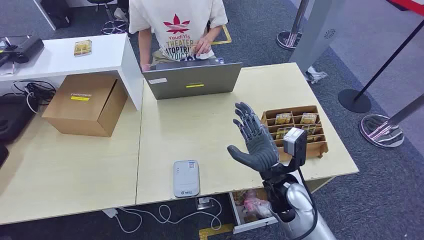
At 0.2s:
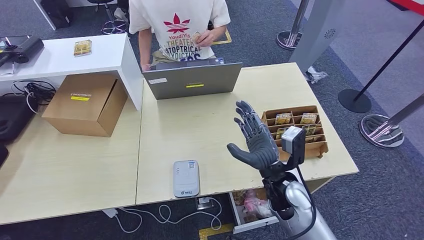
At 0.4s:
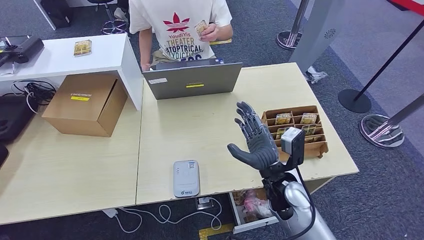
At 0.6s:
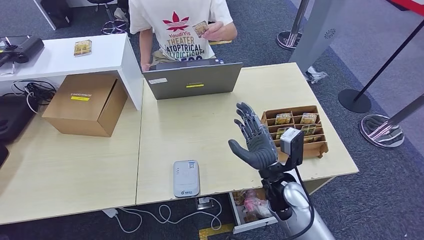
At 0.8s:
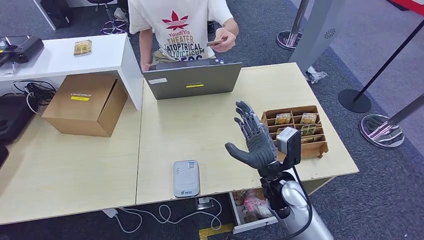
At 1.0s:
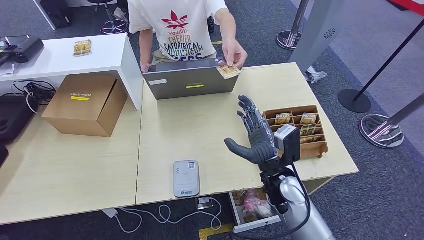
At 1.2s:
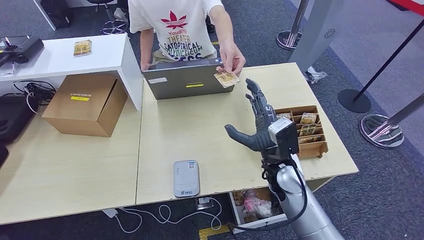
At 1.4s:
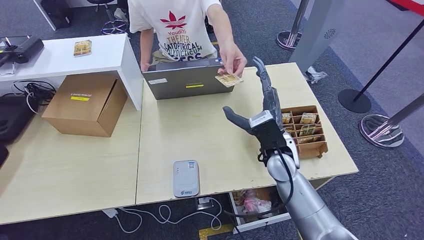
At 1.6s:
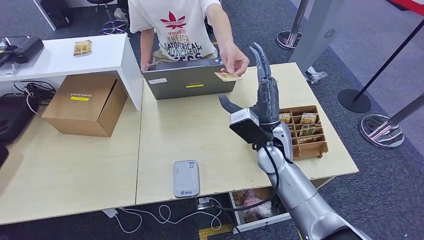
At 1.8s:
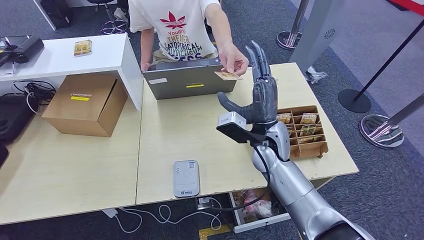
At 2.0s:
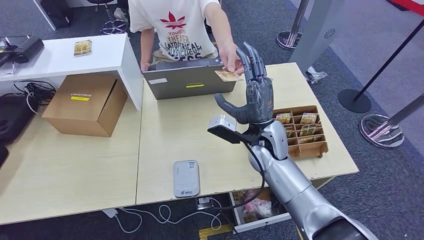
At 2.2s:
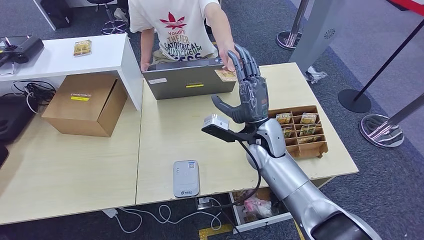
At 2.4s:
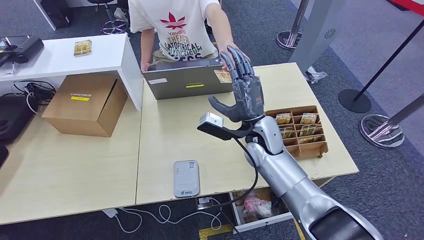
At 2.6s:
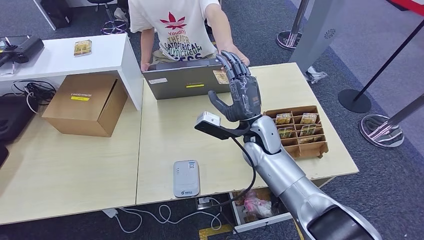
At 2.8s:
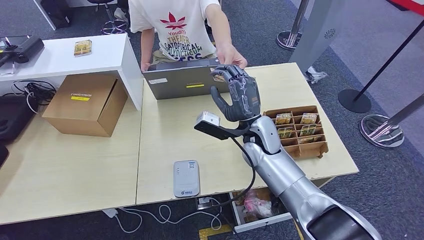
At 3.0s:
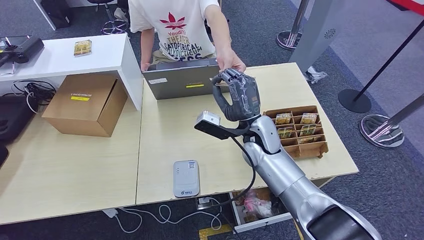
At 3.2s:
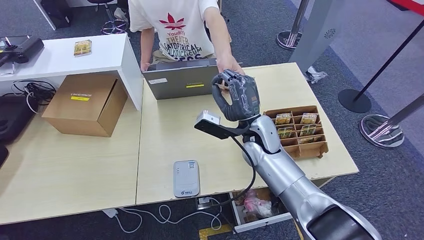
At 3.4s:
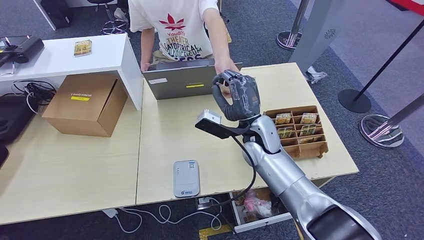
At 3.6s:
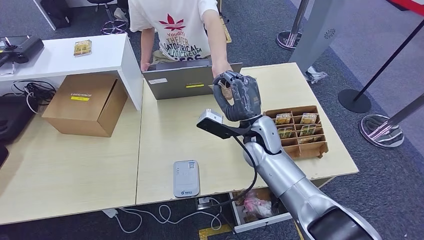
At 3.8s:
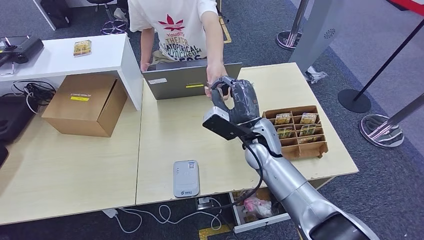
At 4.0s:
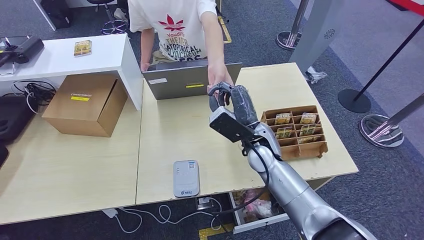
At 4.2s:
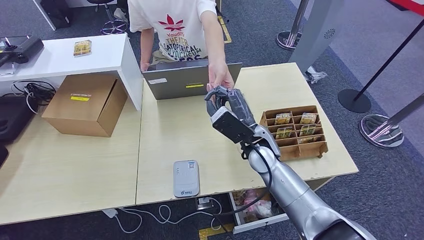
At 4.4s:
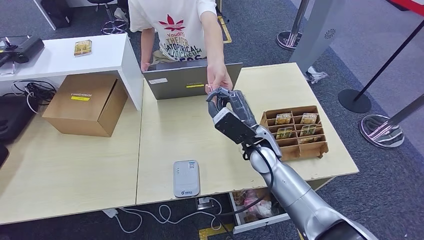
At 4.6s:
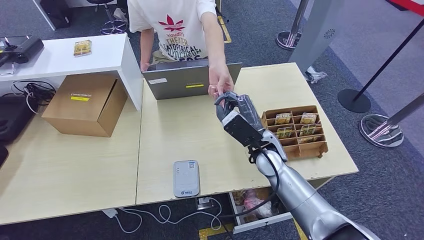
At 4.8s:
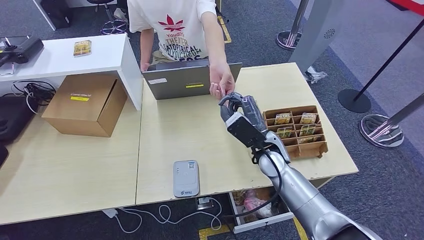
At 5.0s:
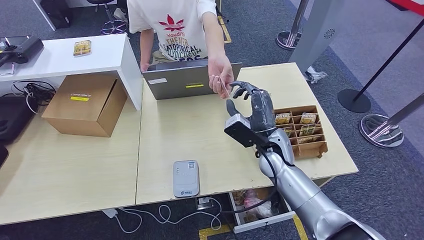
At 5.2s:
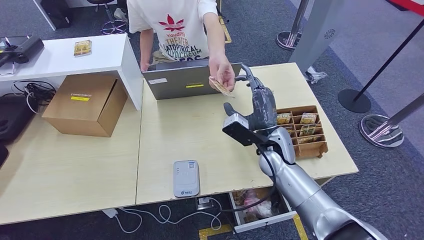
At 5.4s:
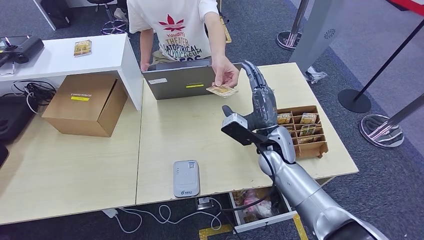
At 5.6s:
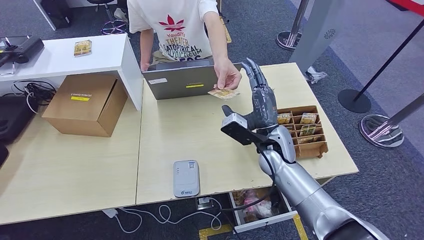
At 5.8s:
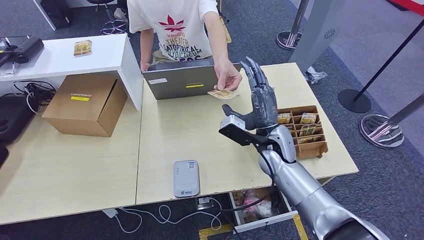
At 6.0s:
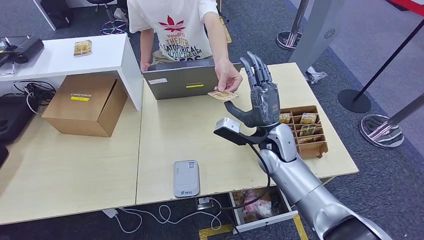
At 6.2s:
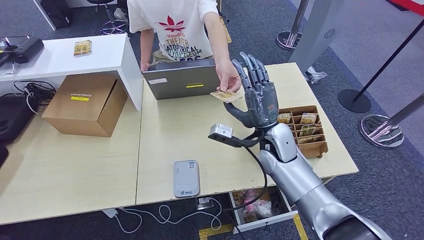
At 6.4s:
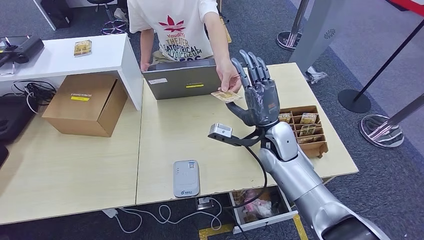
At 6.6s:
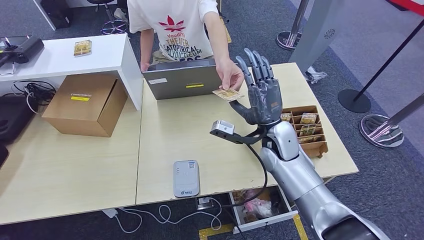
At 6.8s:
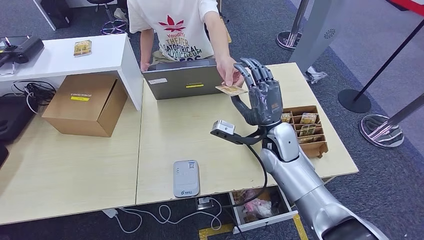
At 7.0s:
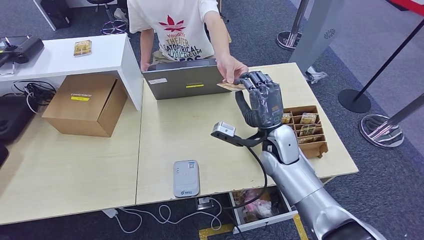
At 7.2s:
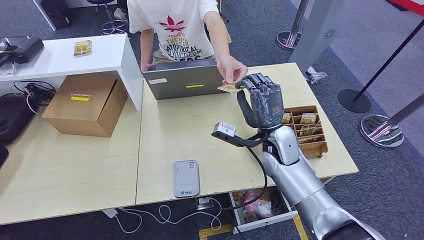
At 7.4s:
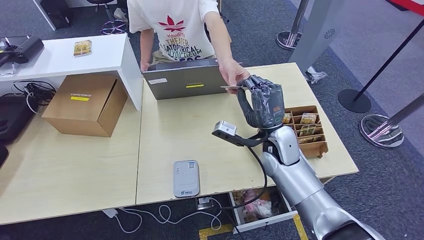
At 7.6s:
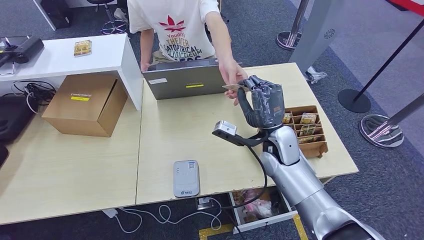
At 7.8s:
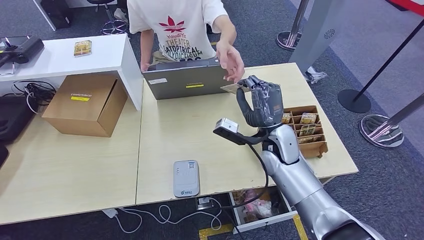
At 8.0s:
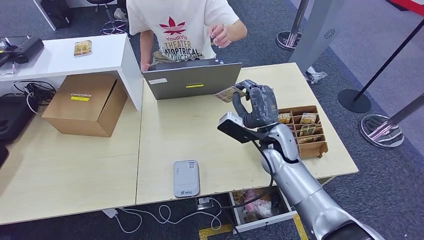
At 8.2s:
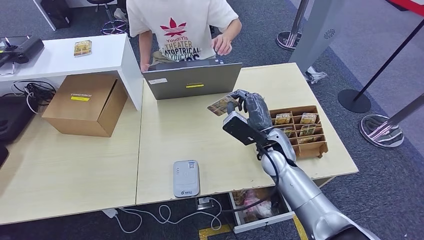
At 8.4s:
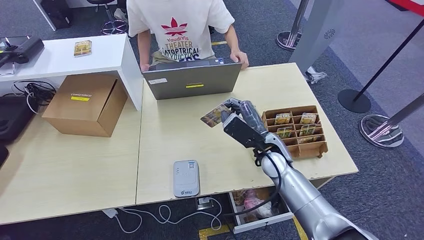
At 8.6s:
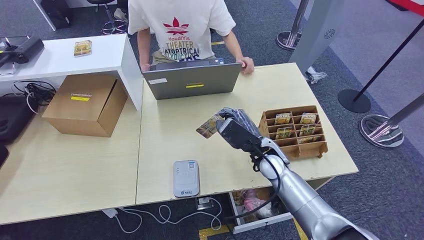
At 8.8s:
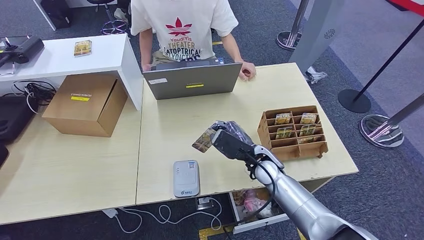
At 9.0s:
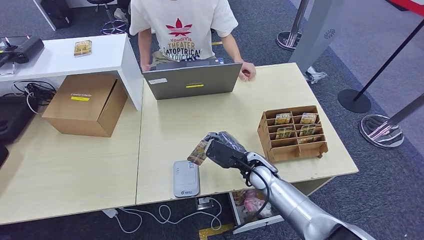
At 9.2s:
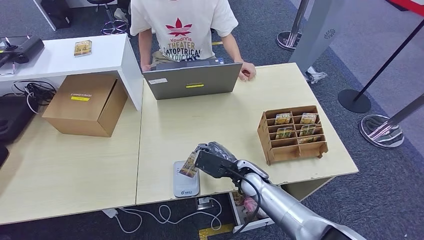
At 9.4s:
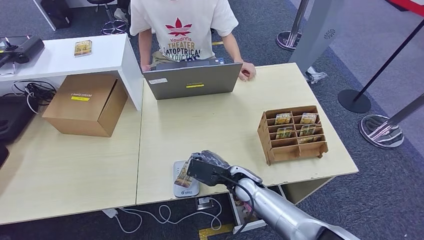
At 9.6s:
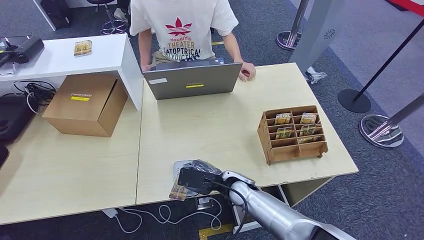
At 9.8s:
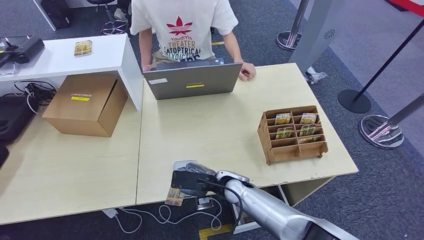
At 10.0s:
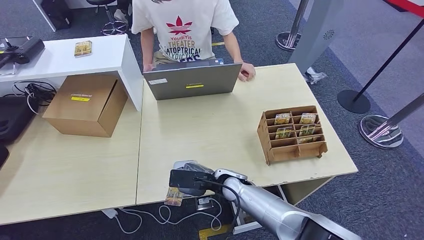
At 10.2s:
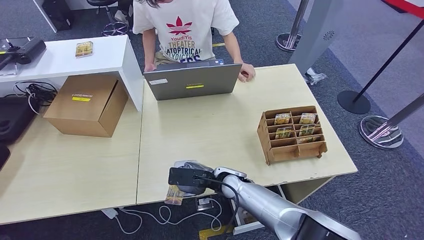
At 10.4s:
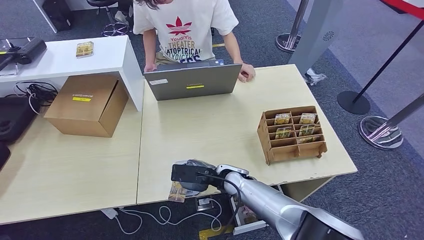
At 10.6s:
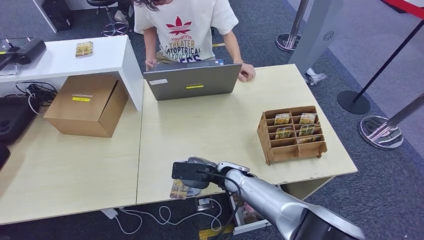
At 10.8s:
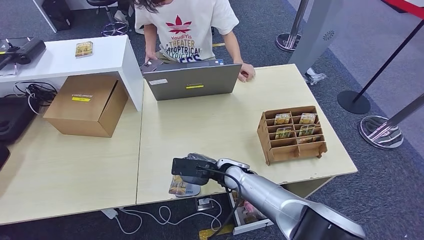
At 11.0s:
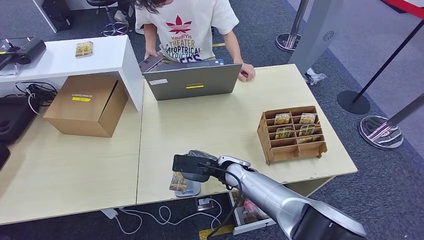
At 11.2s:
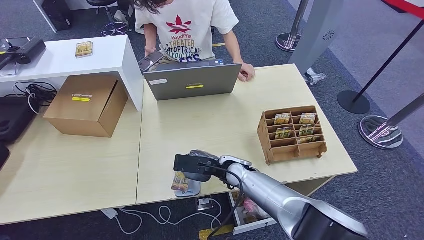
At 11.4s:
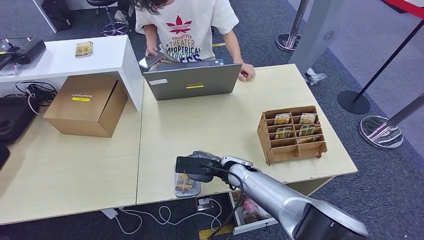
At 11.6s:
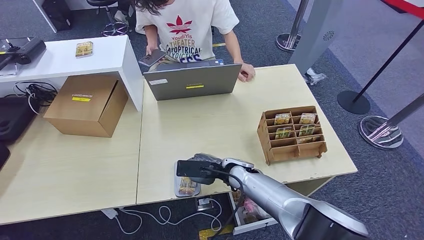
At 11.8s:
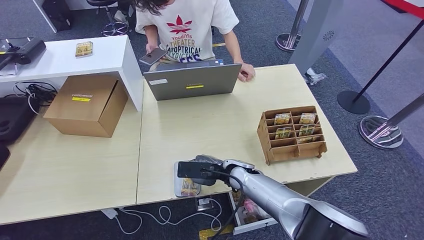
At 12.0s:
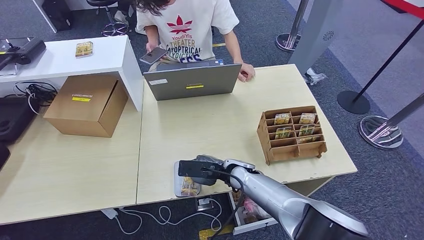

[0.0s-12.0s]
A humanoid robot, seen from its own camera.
Step, 0.0s to 7.8s: Take the ID card from the person's hand.
6.0s to 7.6s: The hands make only small movements.
7.6s to 9.0s: The right hand moves downward, about 10 cm.
9.0s to 10.4s: The right hand heads to the left, covering approximately 5 cm.
10.4s to 12.0s: The hands stay close to where they were, moving slightly.

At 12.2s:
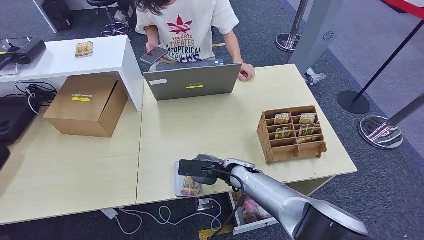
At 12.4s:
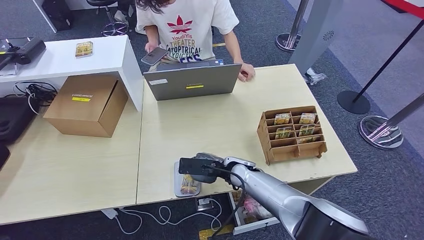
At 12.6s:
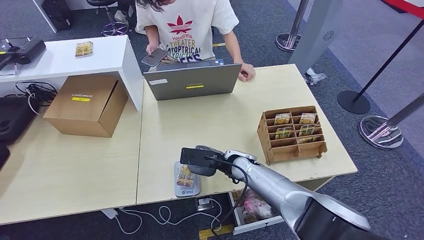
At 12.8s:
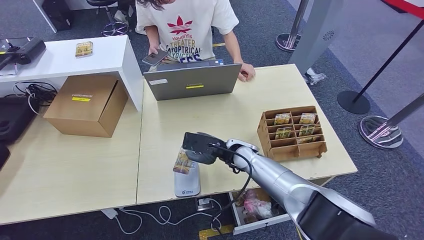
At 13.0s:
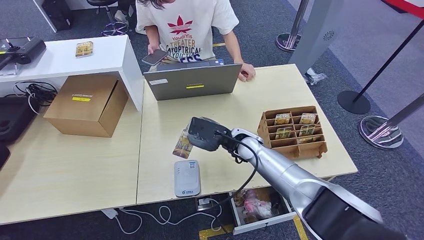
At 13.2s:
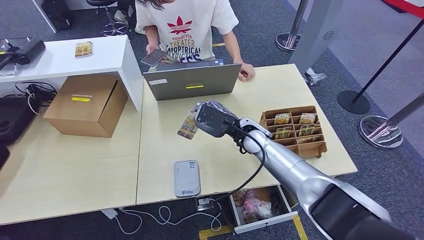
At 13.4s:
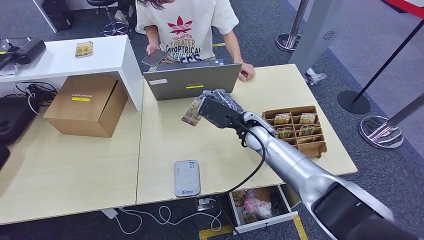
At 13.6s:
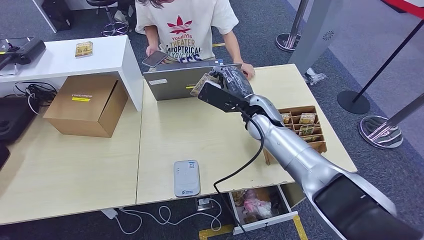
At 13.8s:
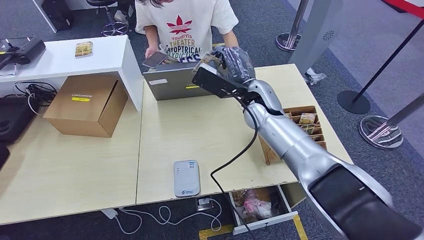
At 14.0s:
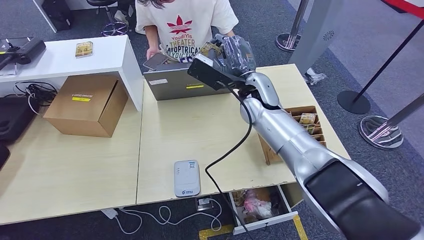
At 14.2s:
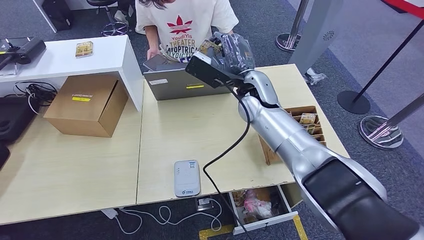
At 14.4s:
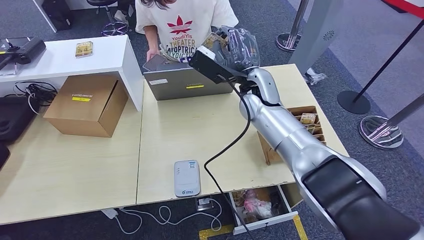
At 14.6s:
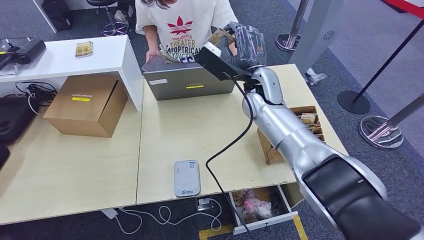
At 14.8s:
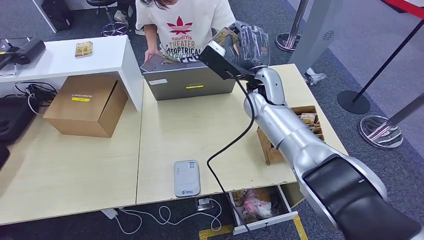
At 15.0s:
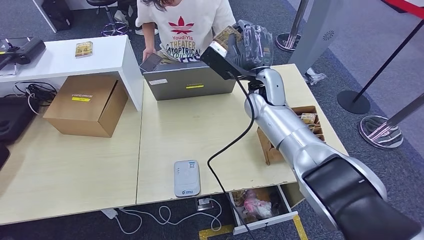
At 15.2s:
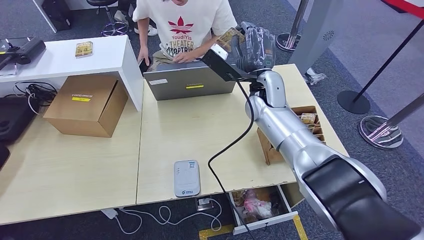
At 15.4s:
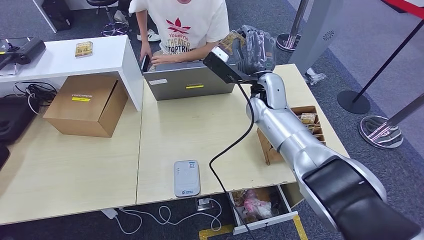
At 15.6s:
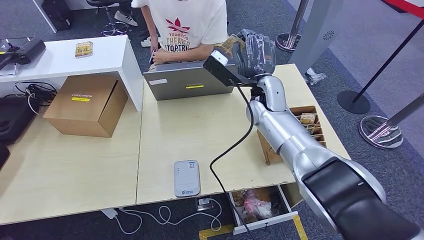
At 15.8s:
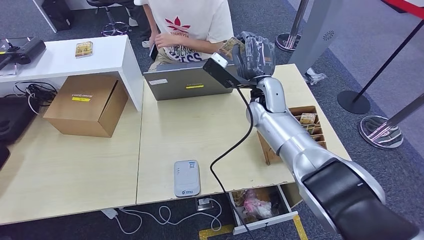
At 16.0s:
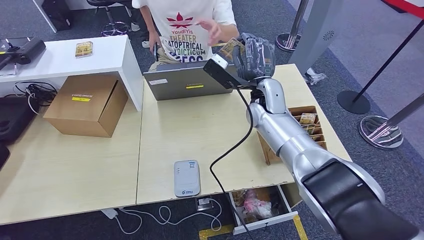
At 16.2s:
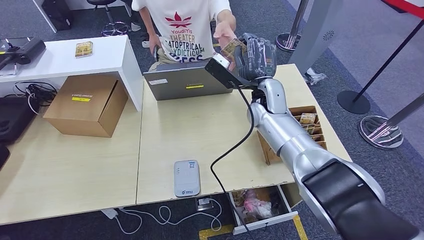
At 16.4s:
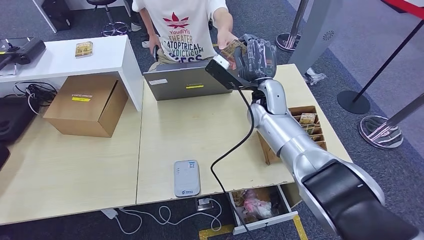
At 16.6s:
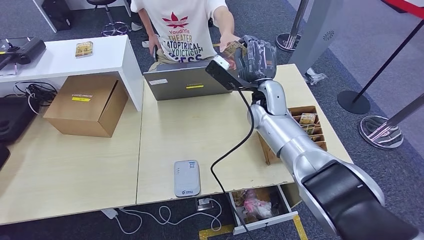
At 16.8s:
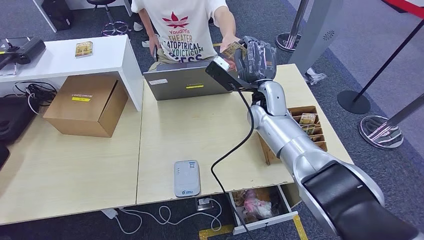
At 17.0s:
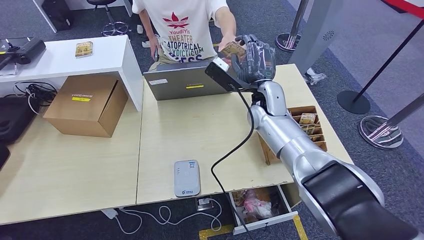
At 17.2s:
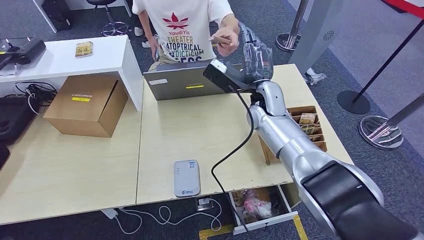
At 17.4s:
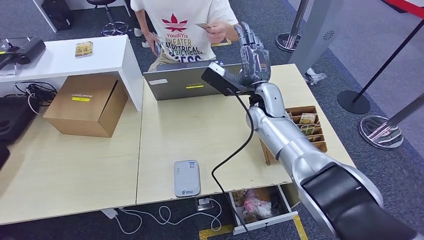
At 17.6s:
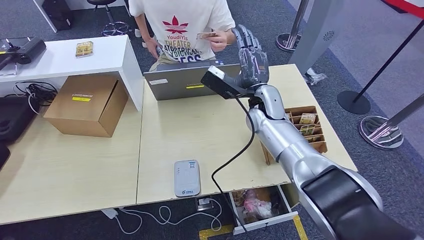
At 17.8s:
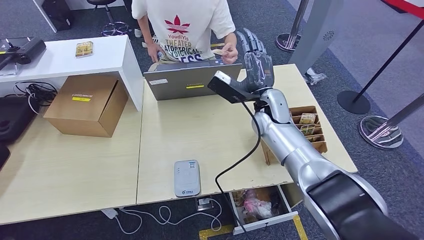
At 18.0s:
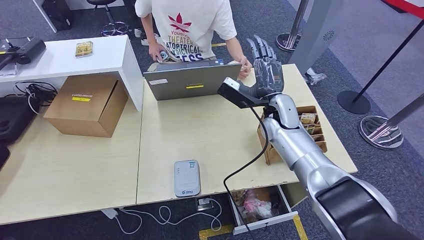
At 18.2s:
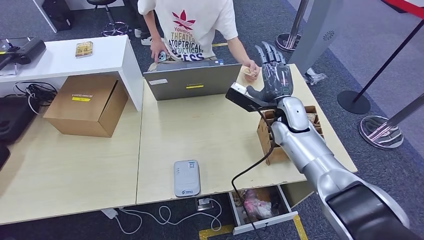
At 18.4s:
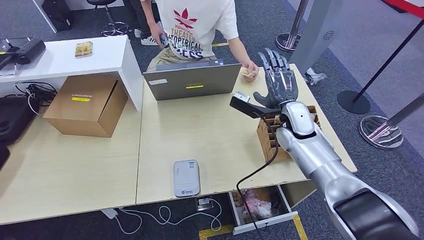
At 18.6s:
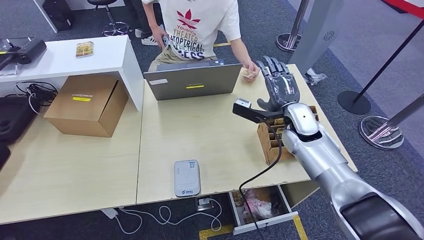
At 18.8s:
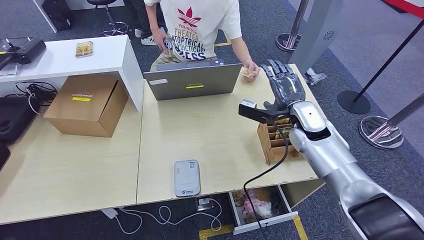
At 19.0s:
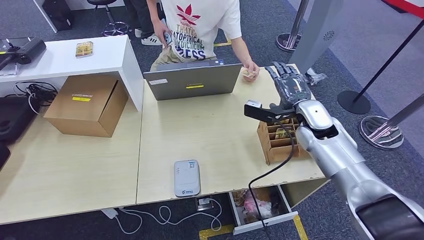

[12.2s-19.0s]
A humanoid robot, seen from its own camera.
Step, 12.6s to 16.8s: Hand the ID card to the person.
12.2s to 13.6s: The right hand travels upward and forward by approximately 15 cm.
13.6s to 15.0s: The right hand is displaced upward by approximately 5 cm.
15.0s to 17.6s: There are only small adjustments of the hands.
17.6s to 19.0s: The right hand heads to the right, covering approximately 15 cm.
